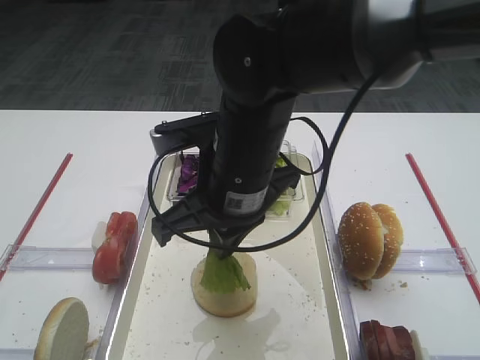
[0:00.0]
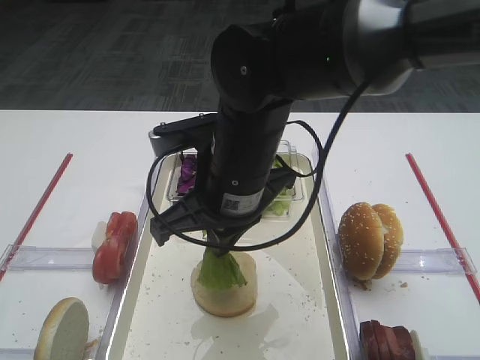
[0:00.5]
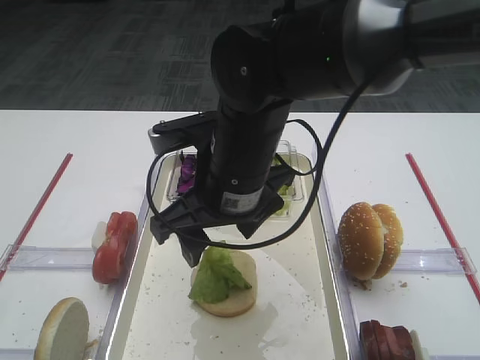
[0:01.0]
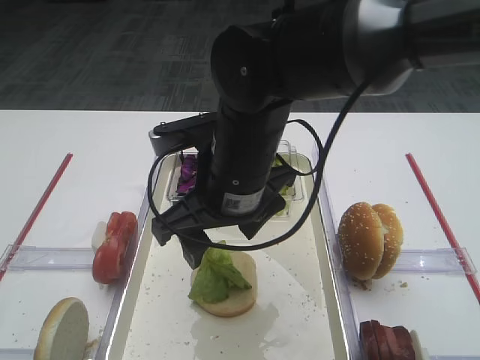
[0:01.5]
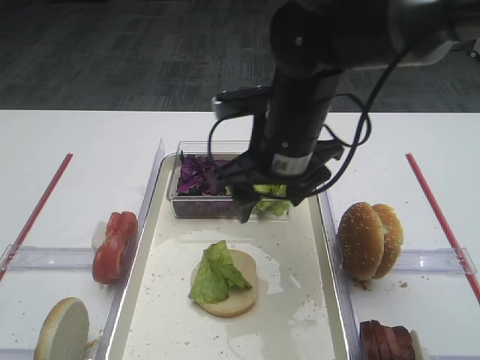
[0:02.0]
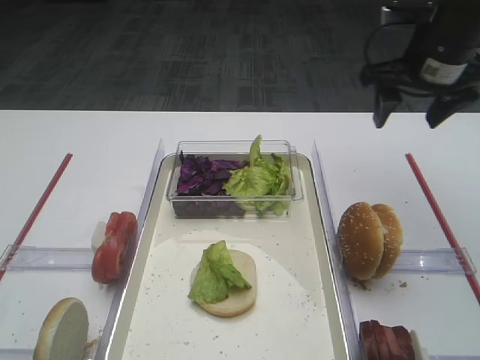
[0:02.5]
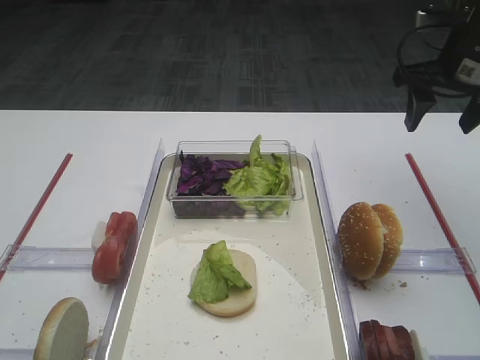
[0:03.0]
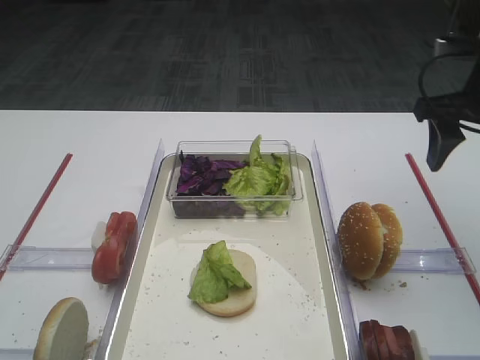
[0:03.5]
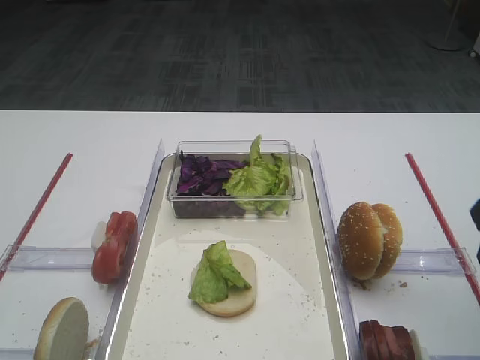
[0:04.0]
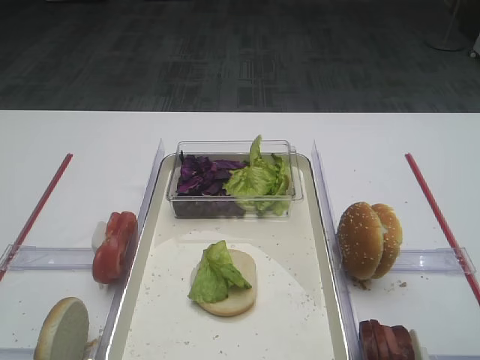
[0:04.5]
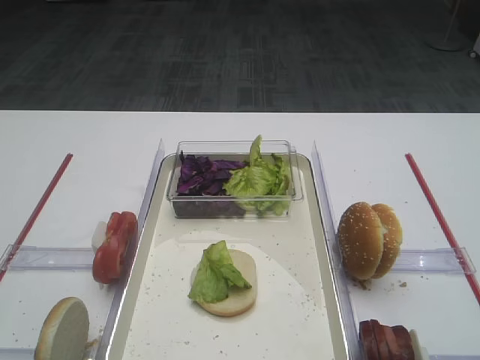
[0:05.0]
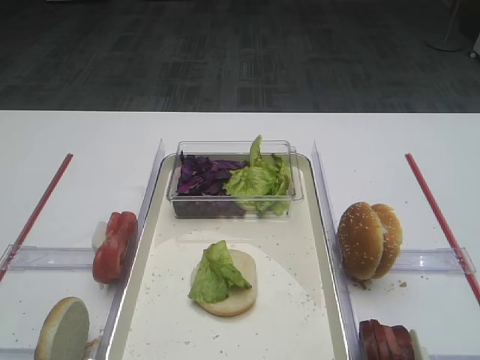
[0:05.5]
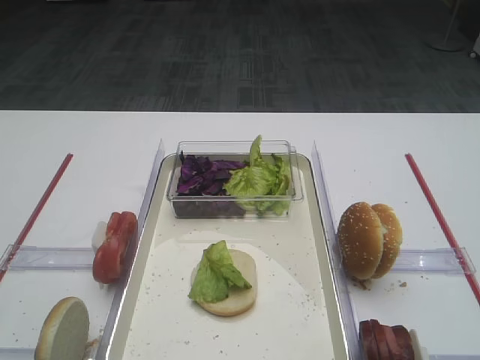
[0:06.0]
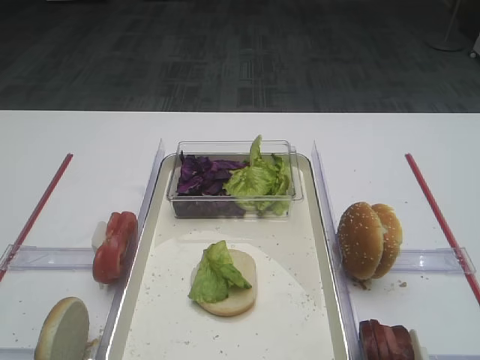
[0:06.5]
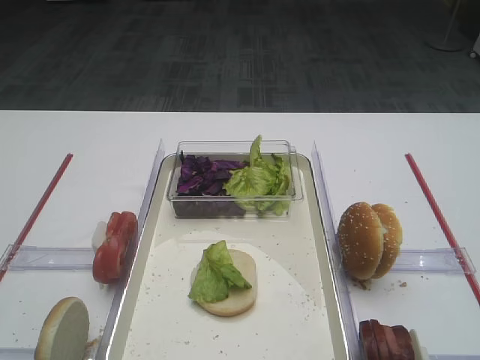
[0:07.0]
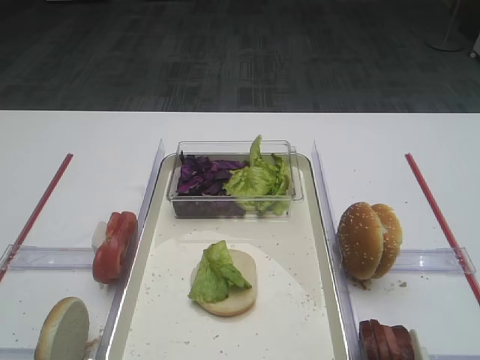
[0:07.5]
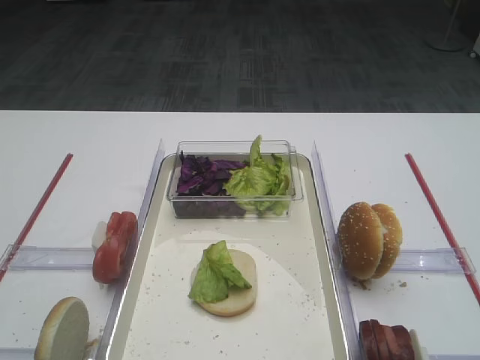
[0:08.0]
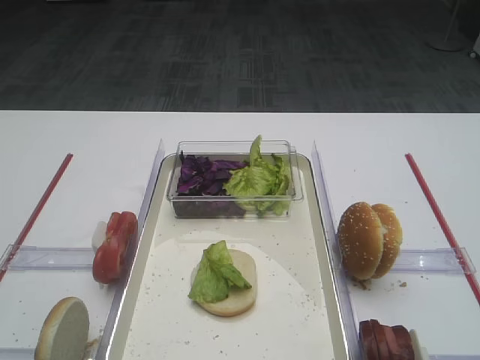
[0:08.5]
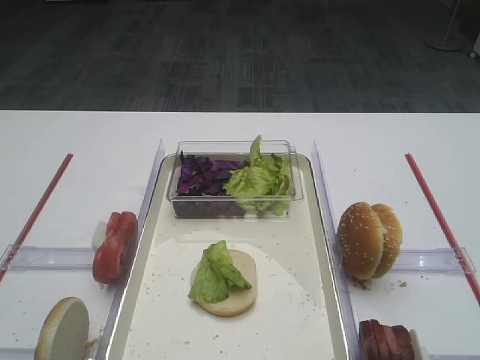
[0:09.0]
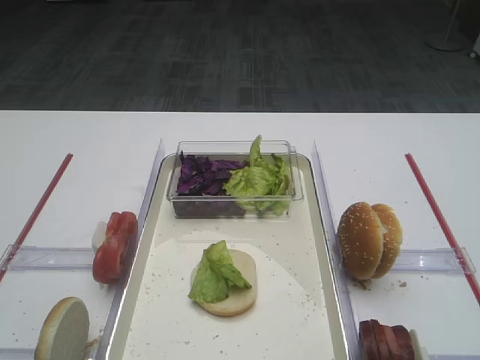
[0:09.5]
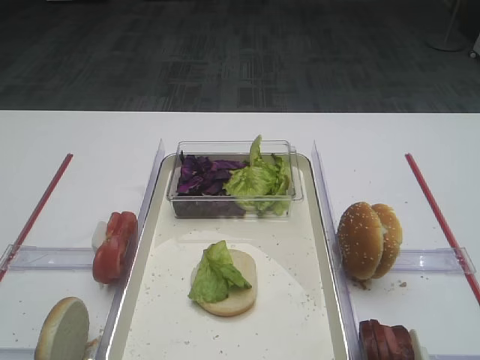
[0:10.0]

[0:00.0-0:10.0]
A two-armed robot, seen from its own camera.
0:00.0 to 0:02.0: The right gripper is displaced to the right and forward by roughly 5 cm, and opens up.
0:02.0 to 0:04.0: The right gripper travels to the right and backward by approximately 25 cm.
0:04.0 to 0:06.0: The right gripper heads backward, covering about 20 cm.
0:06.0 to 0:10.0: Both grippers stay about where they are.

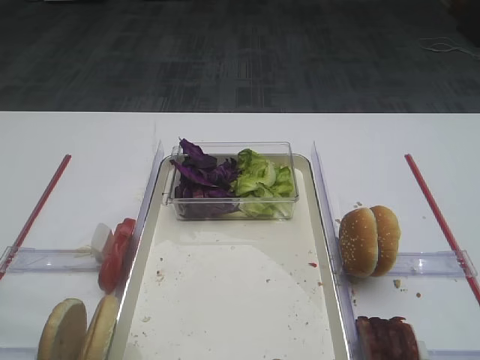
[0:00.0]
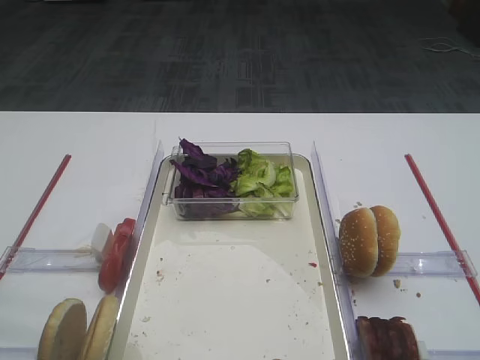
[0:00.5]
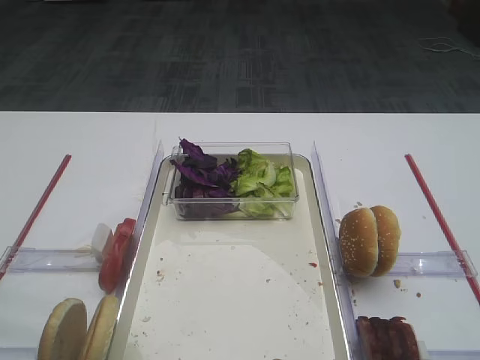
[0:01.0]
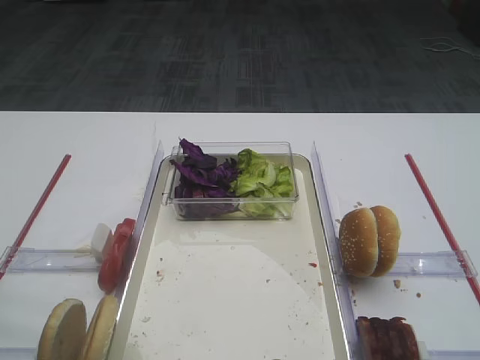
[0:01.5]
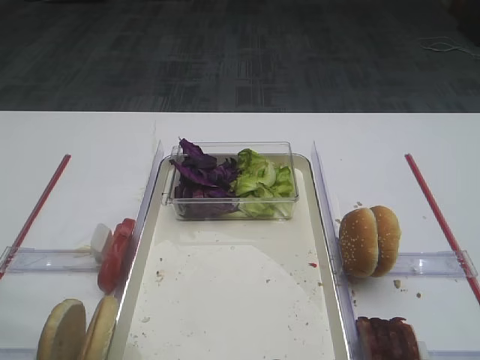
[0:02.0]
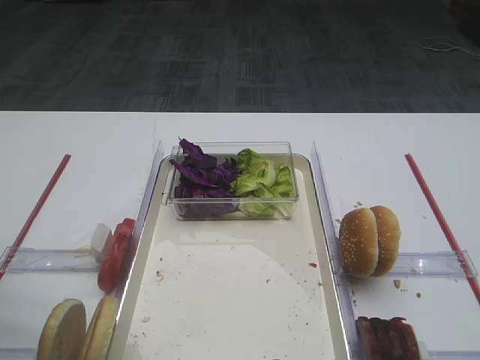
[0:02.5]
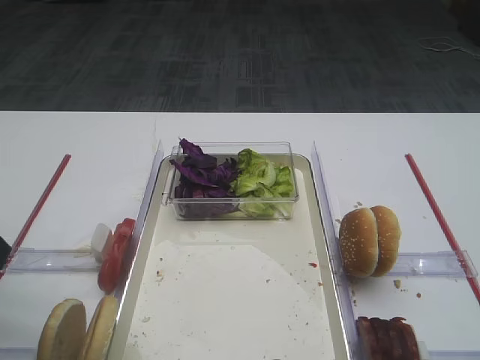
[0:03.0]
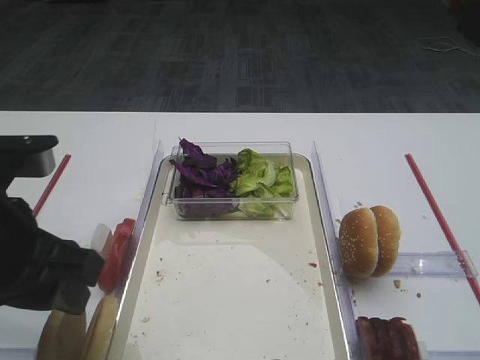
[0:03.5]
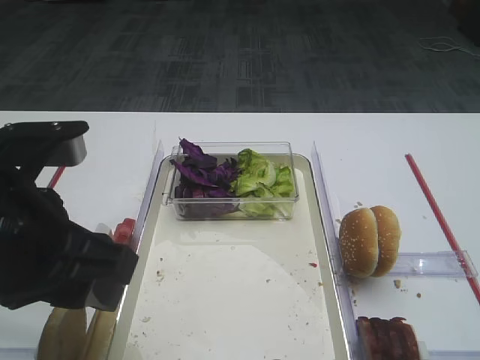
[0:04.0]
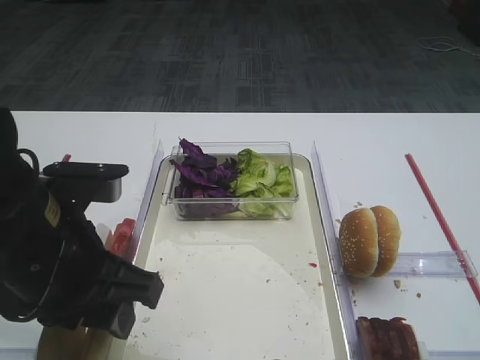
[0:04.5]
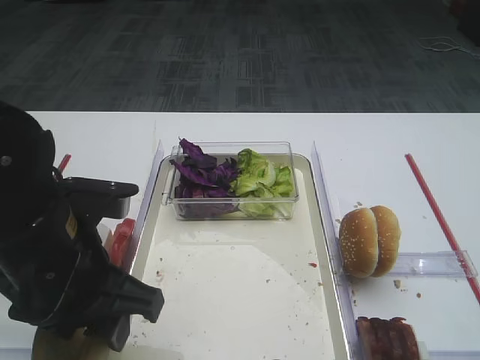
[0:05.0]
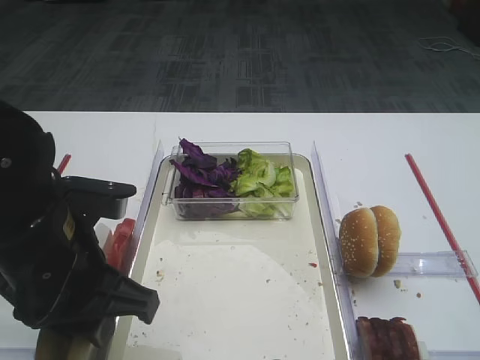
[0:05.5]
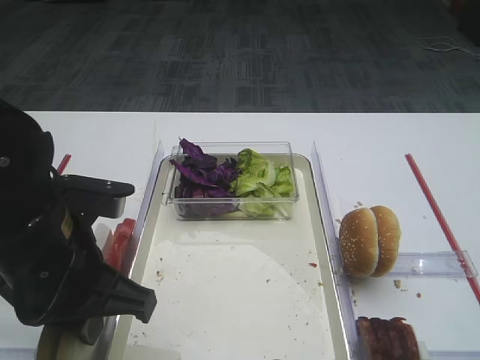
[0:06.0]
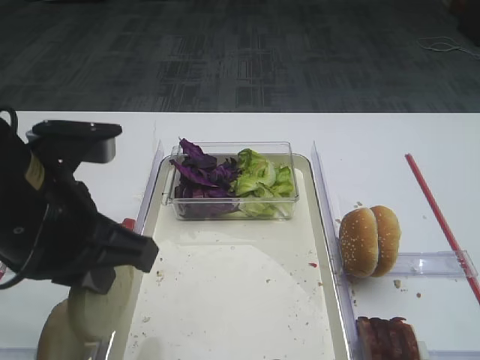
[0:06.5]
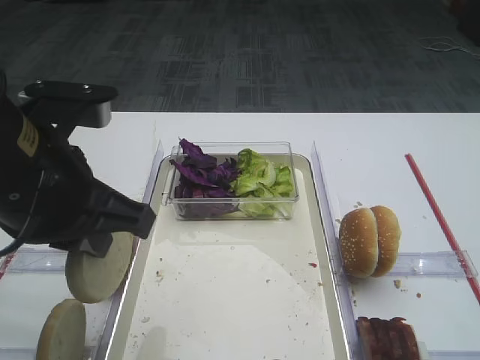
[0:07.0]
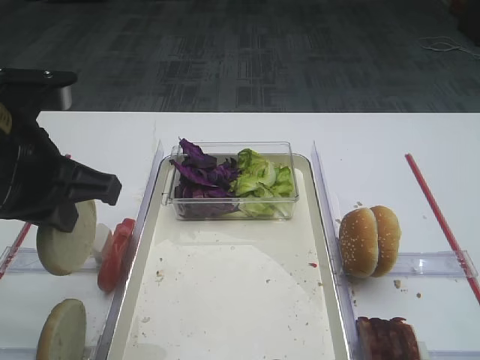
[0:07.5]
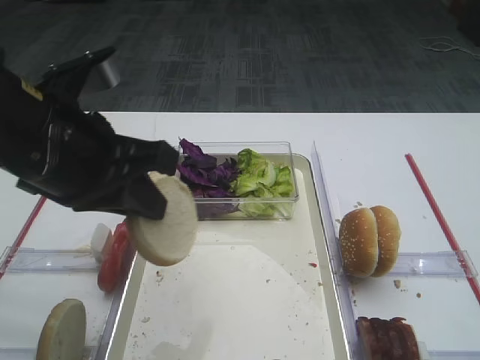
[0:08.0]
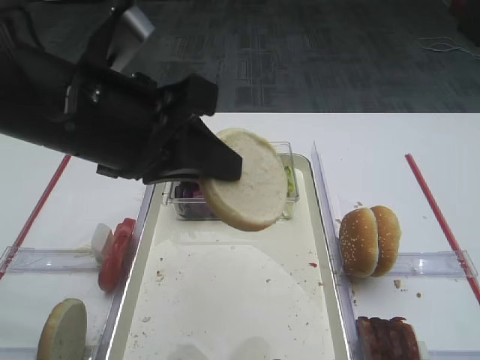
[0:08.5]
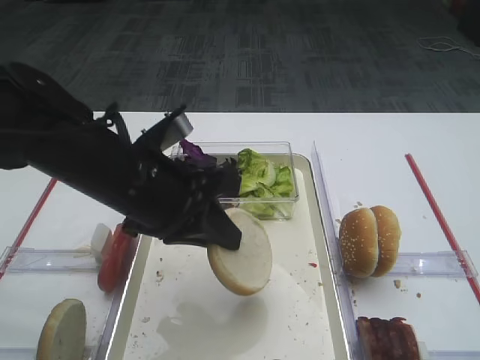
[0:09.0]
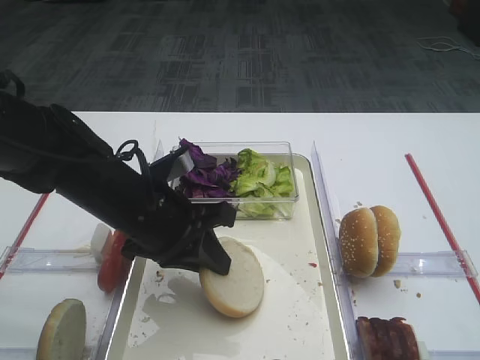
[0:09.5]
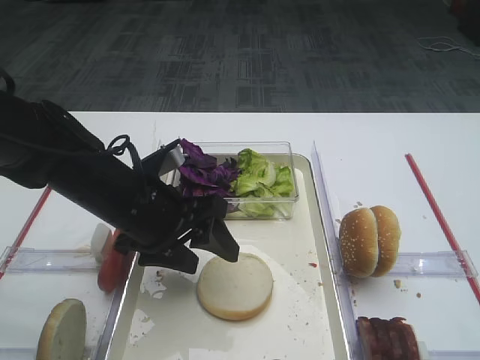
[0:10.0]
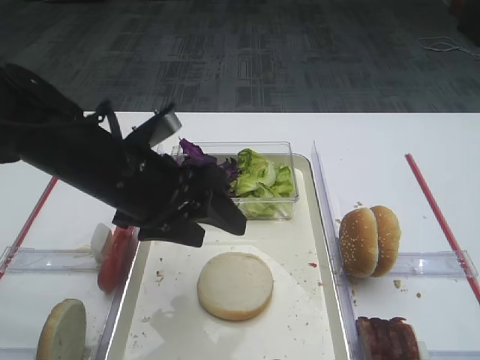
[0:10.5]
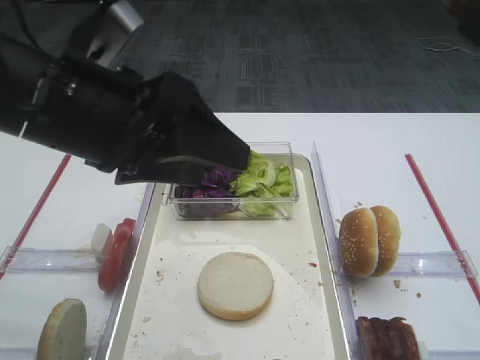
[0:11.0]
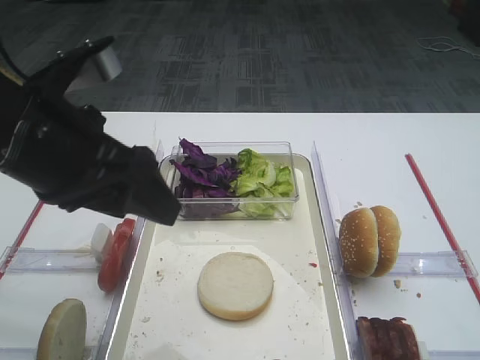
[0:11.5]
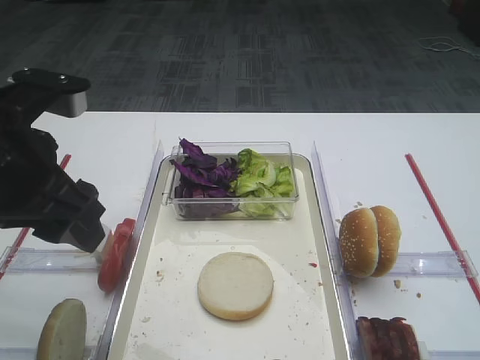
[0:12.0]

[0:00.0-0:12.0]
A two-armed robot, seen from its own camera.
Step, 0:00.0 to 0:06.0: Pick up the bread slice with the left gripper.
Step, 0:06.5 to 0:10.0: Place the bread slice on the tray with the left gripper.
0:02.0 to 0:04.0: The left gripper moves to the right, about 15 cm.
0:04.0 to 0:06.0: The left gripper shifts roughly 5 cm downward, and closes its fingers.
0:06.0 to 0:08.0: The left gripper goes roughly 10 cm upward.
0:08.0 to 0:10.0: The left gripper moves downward and forward, approximately 15 cm, and opens its fingers.
0:10.0 to 0:12.0: The left gripper travels upward, to the left and backward by approximately 15 cm.

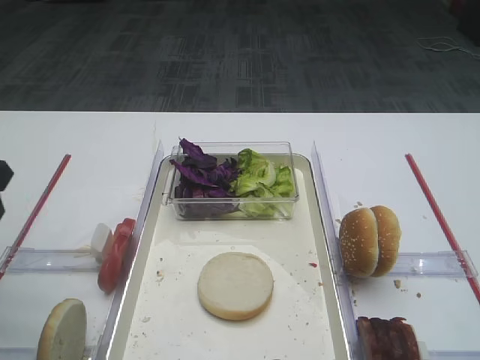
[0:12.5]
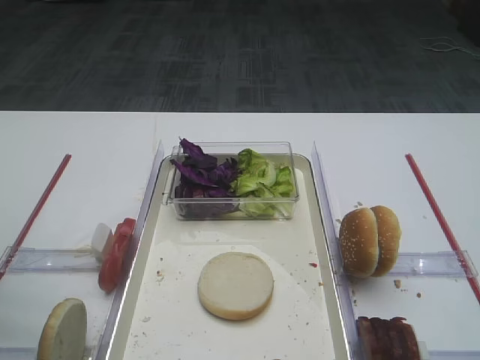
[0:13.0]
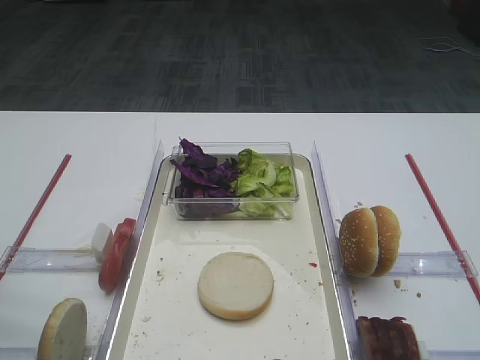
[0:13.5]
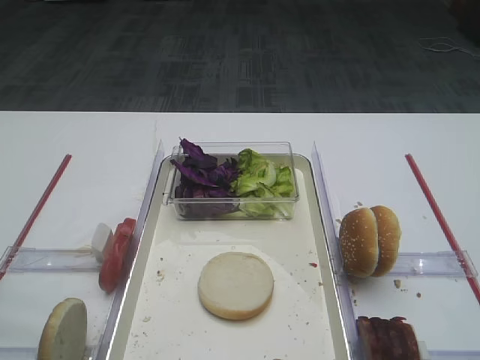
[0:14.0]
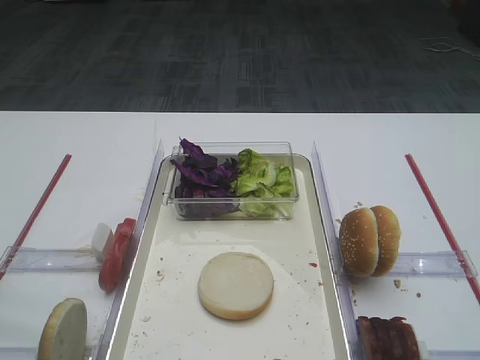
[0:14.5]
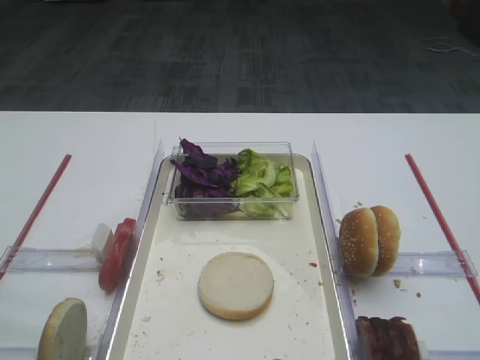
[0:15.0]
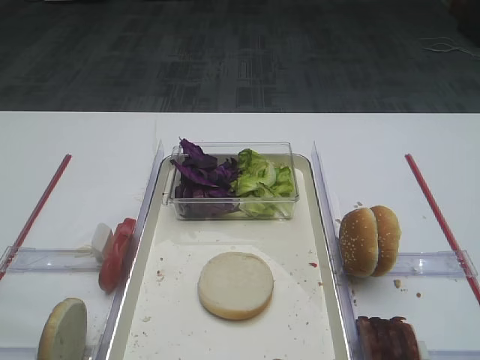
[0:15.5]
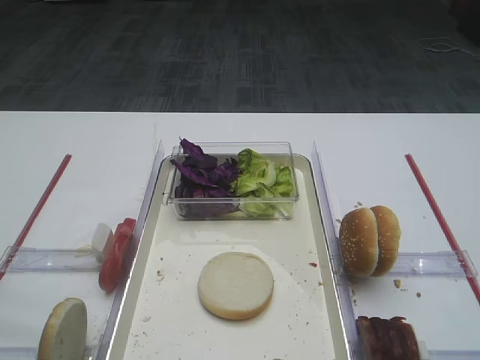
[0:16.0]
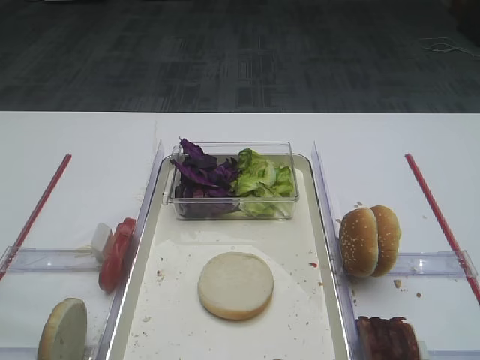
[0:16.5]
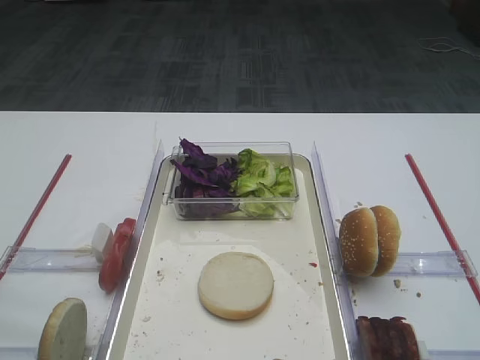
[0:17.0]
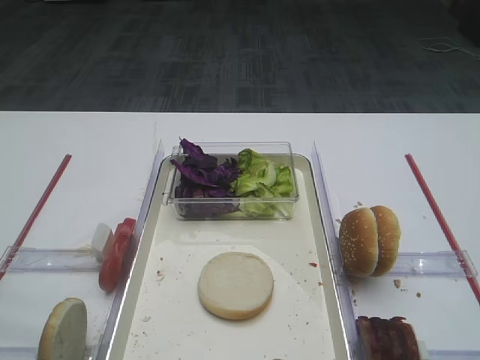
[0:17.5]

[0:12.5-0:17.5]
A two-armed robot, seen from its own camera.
0:15.0 to 0:17.5: Both grippers stay put.
